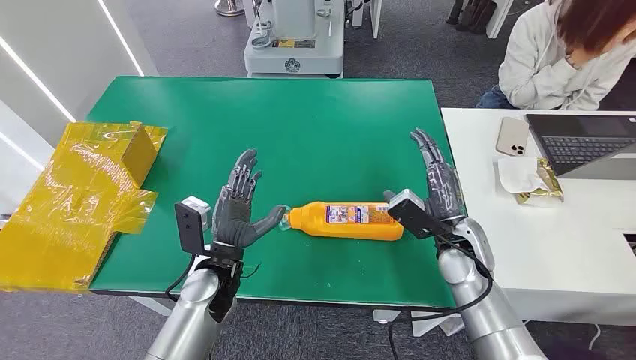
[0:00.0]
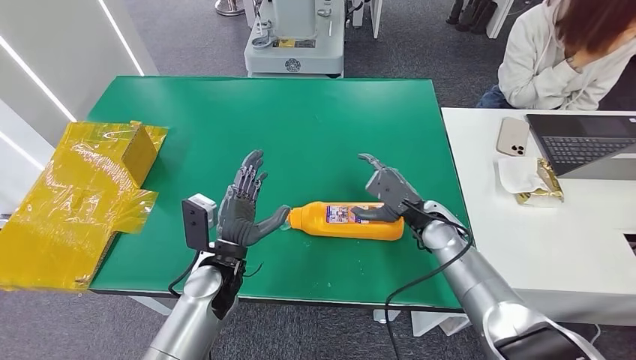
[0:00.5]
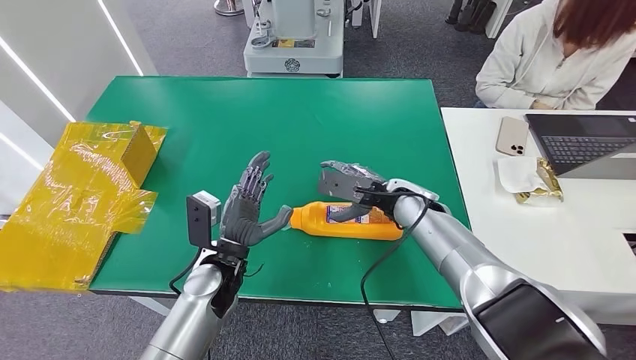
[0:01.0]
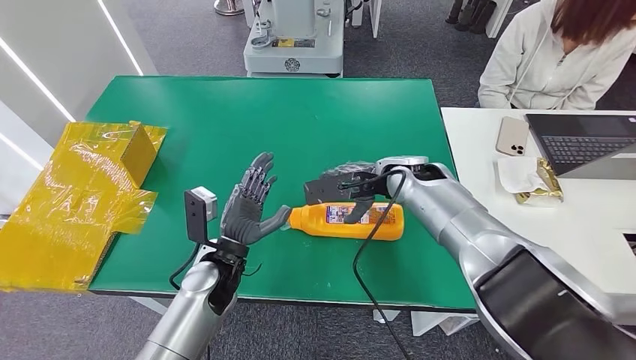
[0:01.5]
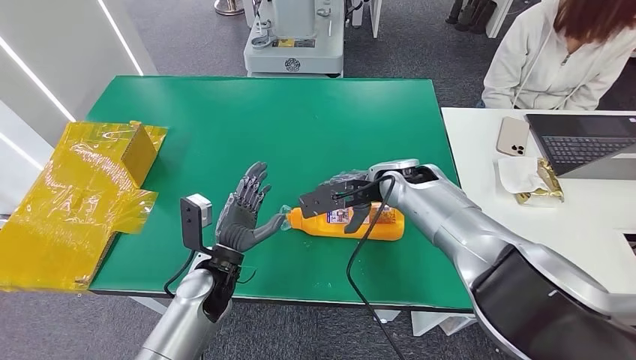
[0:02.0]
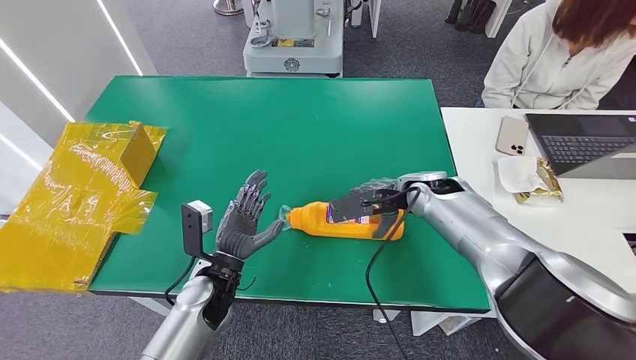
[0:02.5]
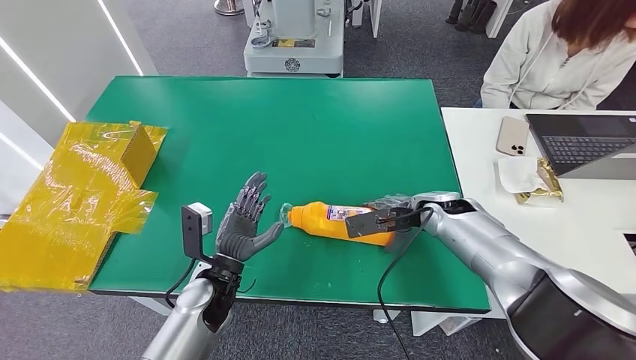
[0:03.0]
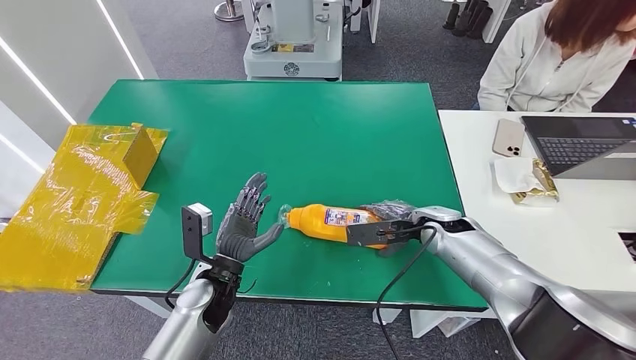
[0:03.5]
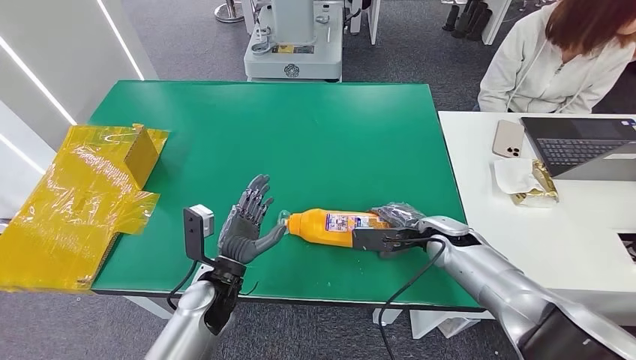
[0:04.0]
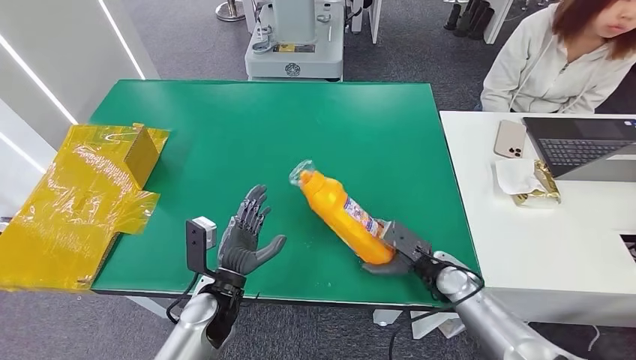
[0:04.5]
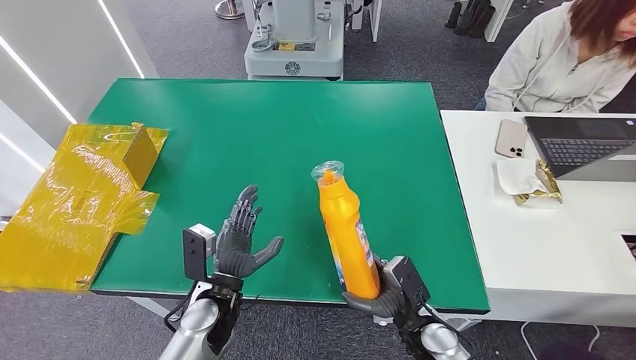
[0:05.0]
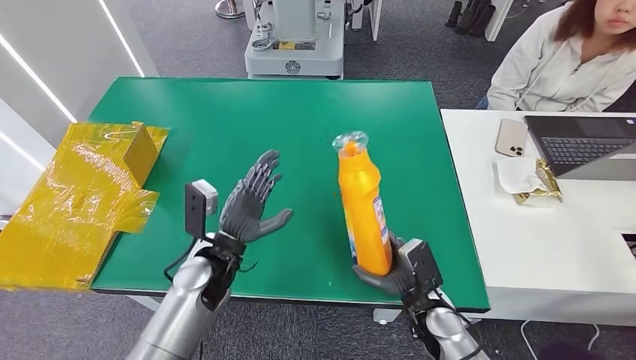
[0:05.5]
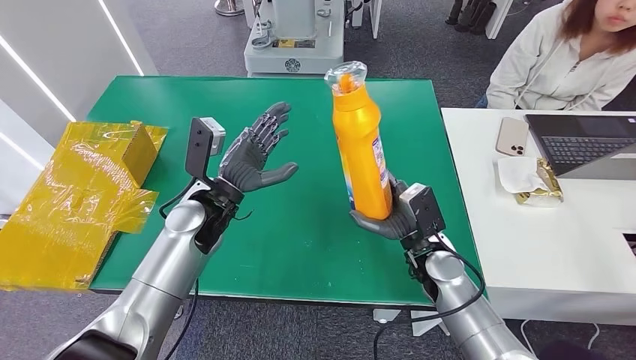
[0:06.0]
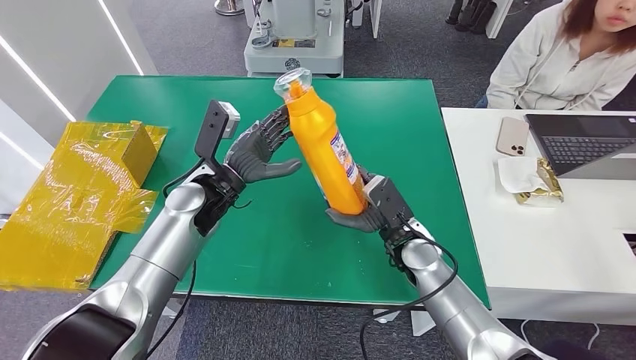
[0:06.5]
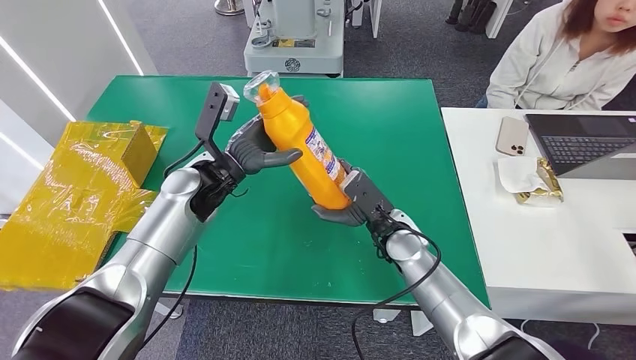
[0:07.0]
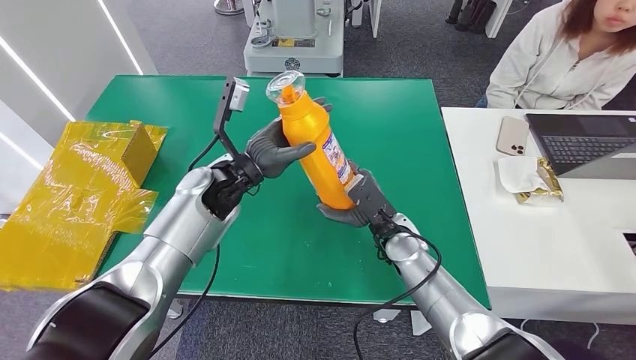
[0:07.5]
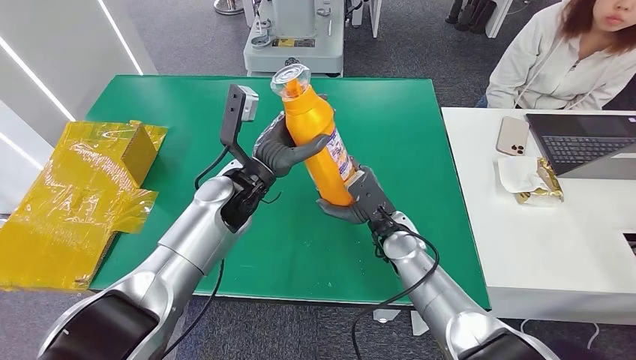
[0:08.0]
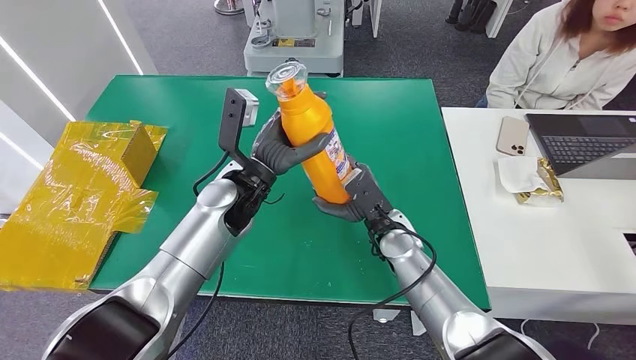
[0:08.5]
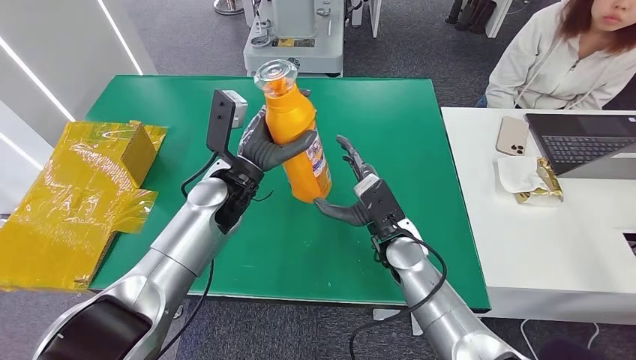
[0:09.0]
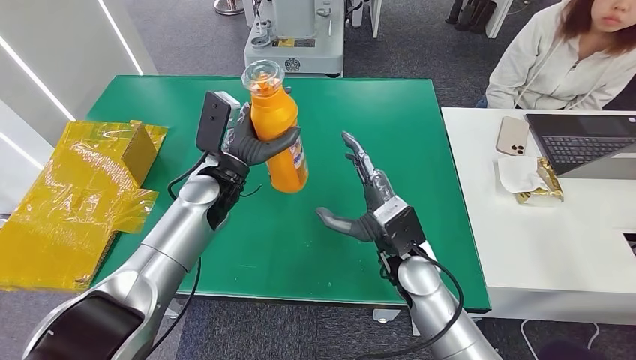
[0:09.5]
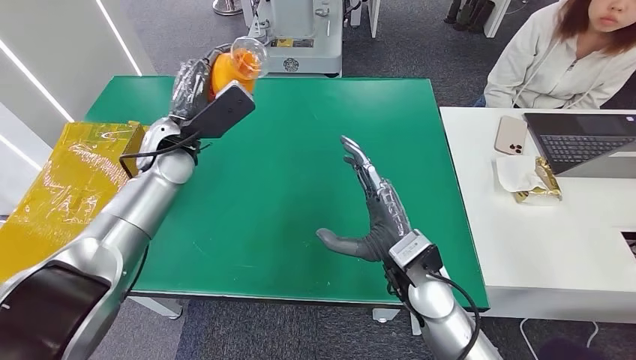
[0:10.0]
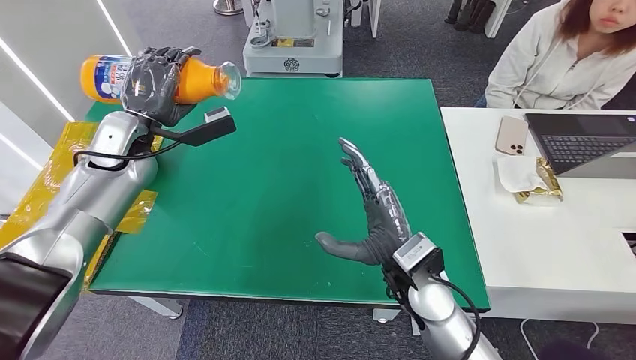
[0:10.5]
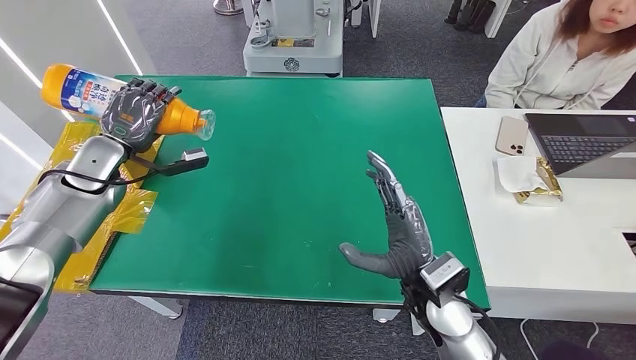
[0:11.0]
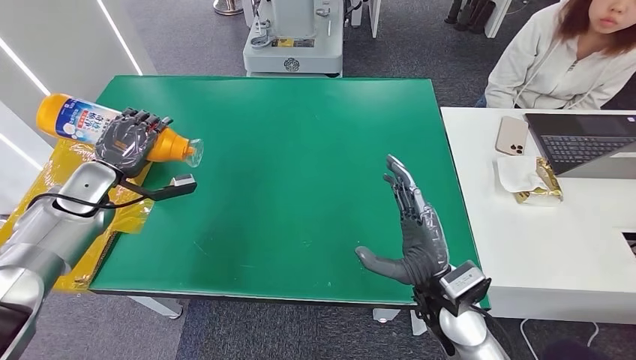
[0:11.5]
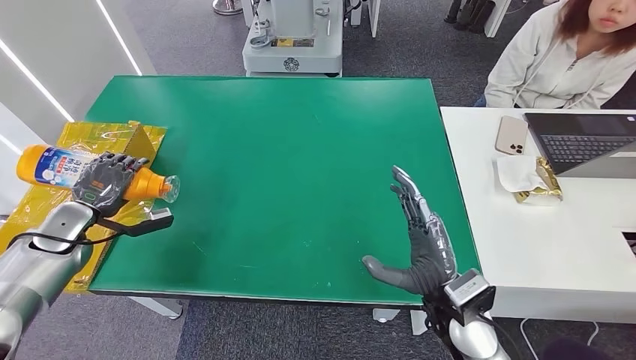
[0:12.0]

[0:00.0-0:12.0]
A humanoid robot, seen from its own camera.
Step, 0:00.0 to 0:03.0: Pick up the bottle from the table.
0:06.0 to 0:08.0: The right hand shifts approximately 5 cm to the left; the left hand moves some 5 cm.

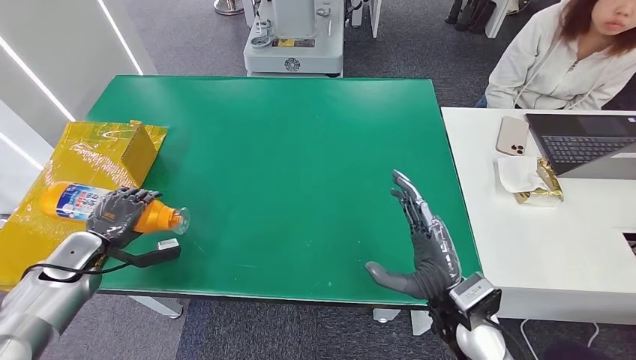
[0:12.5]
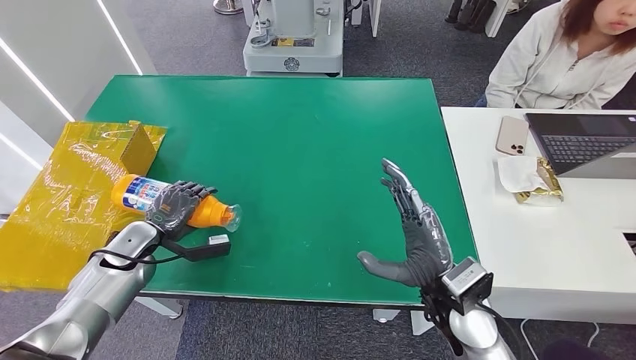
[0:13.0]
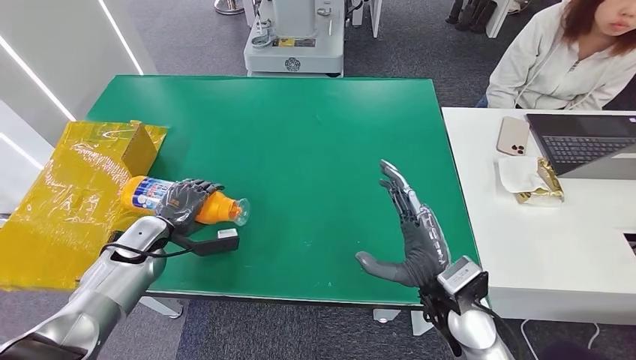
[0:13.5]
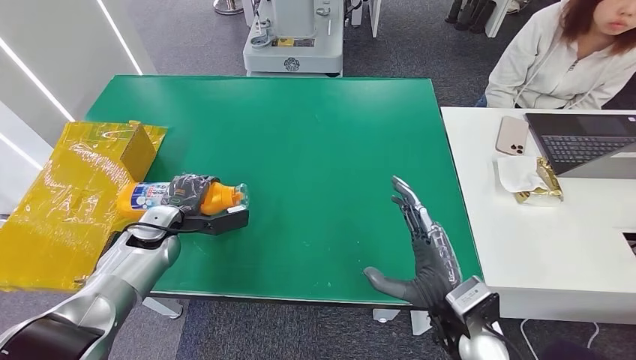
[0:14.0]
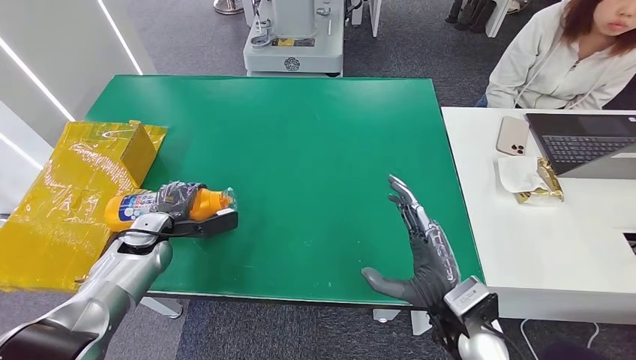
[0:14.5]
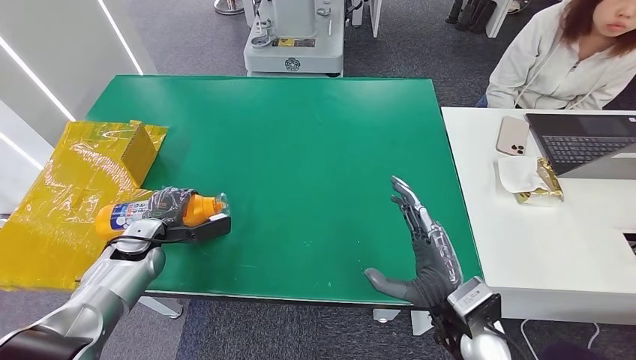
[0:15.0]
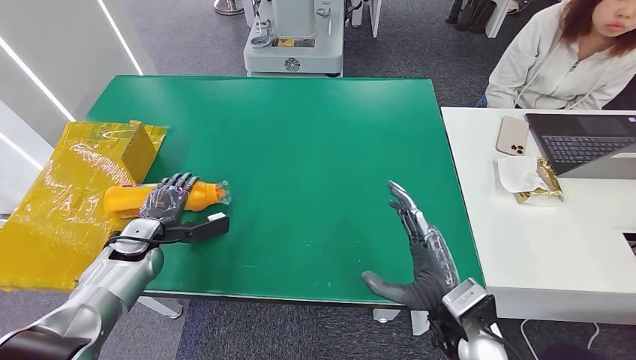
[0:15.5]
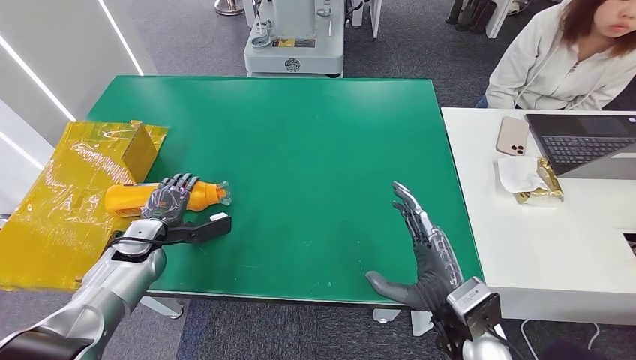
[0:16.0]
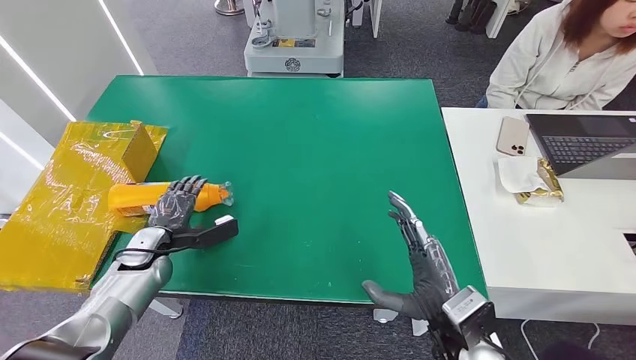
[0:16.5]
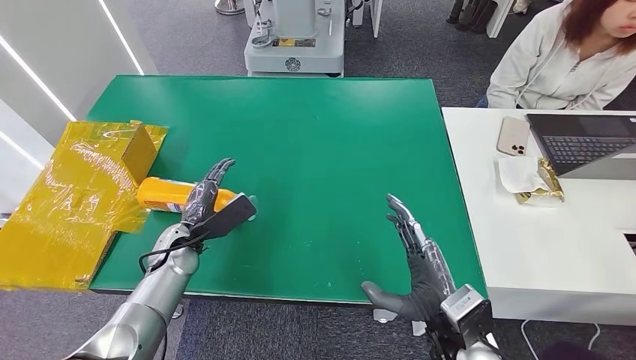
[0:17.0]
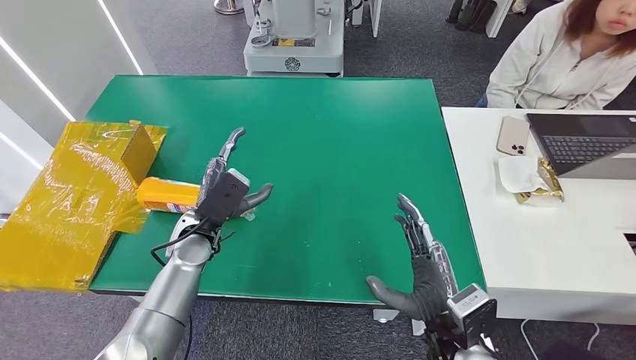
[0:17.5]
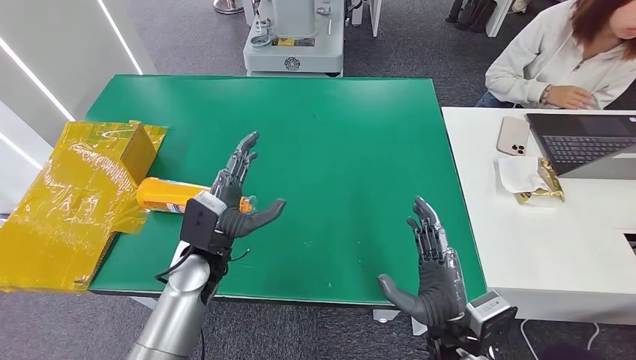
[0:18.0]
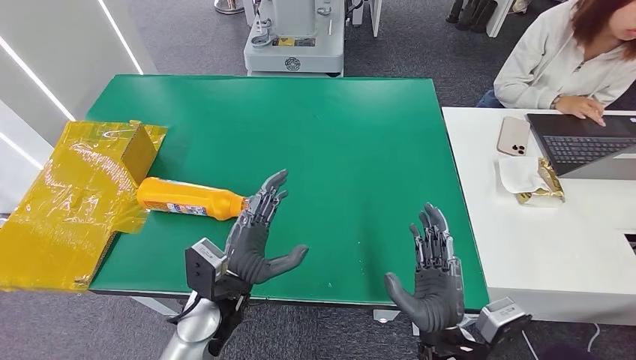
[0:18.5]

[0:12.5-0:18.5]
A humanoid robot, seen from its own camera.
Step, 0:12.5 to 0:18.5: Turn the bottle to the front side.
0:12.5 to 0:14.5: The left hand is displaced to the right by some 15 cm.
0:14.5 to 0:16.5: The hands stay close to where they were, moving slightly.
0:16.5 to 0:18.5: The left hand heads to the right and backward, covering approximately 25 cm.

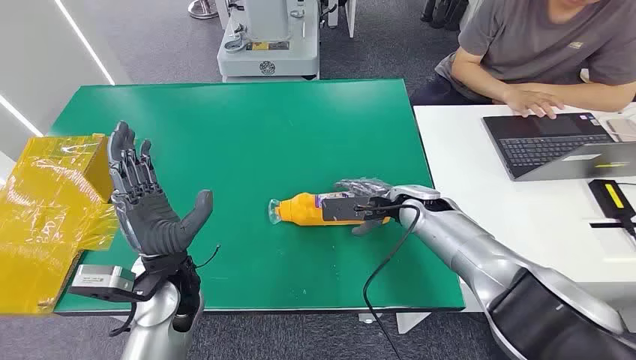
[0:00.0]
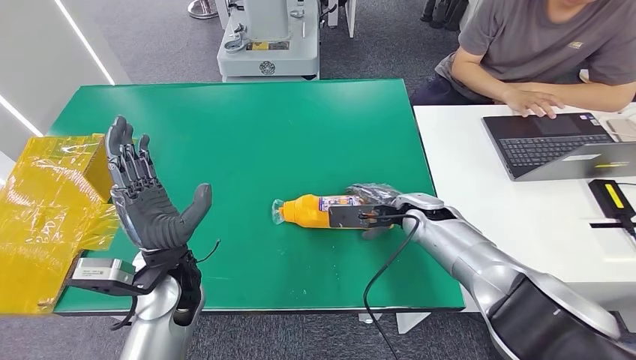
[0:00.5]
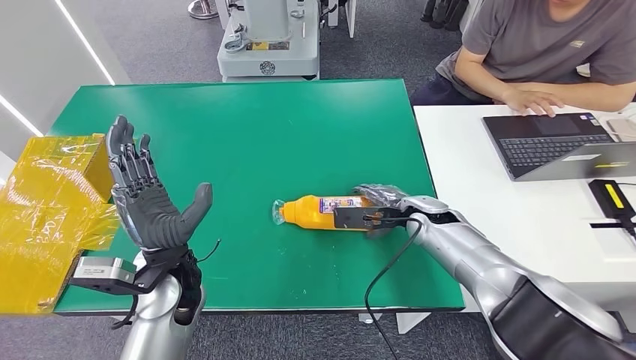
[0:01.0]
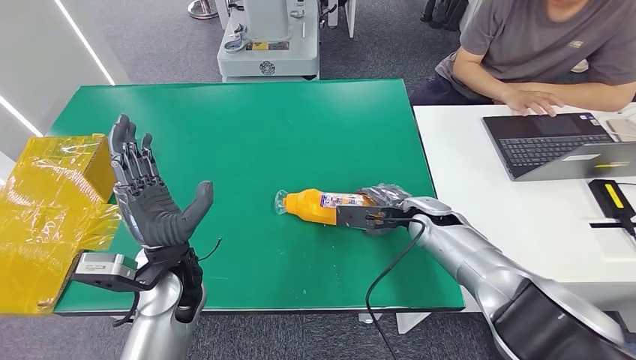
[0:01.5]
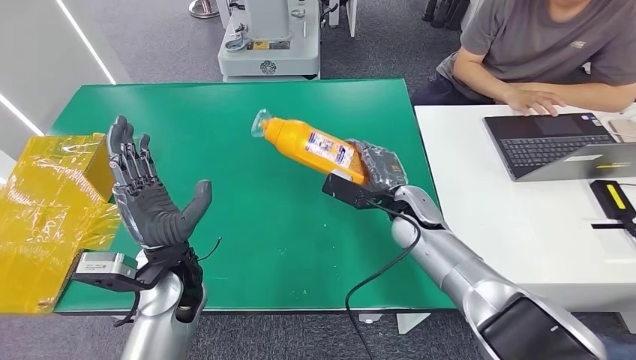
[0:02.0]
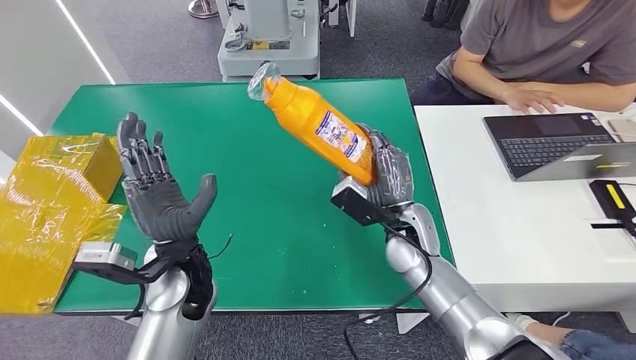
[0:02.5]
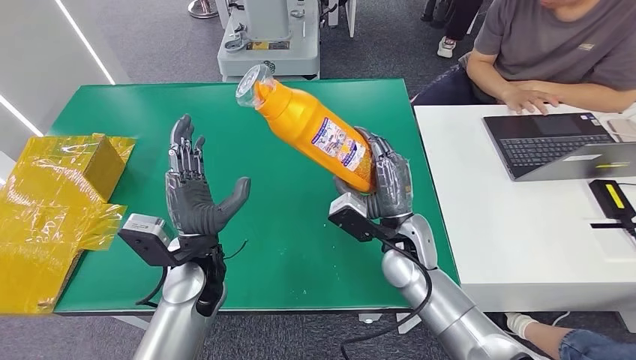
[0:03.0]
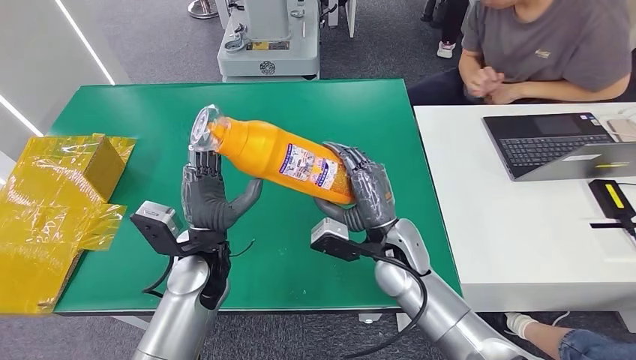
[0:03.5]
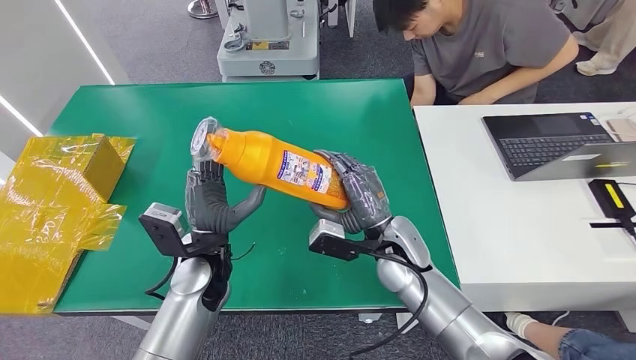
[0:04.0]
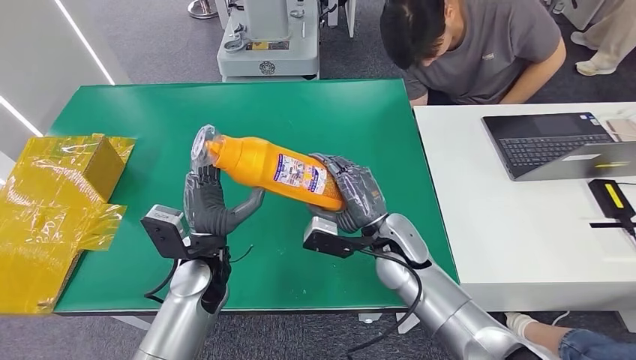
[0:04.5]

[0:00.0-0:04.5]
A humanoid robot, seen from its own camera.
Step, 0:00.0 to 0:02.0: Pick up the bottle from the table.
